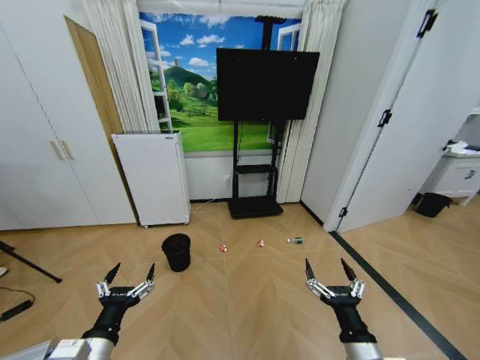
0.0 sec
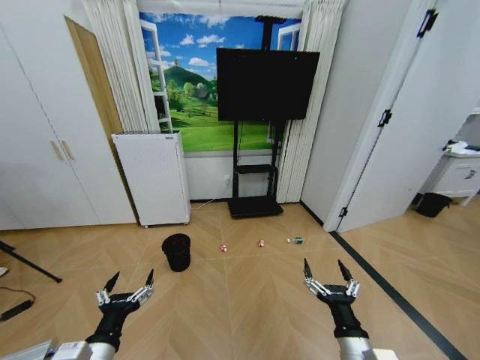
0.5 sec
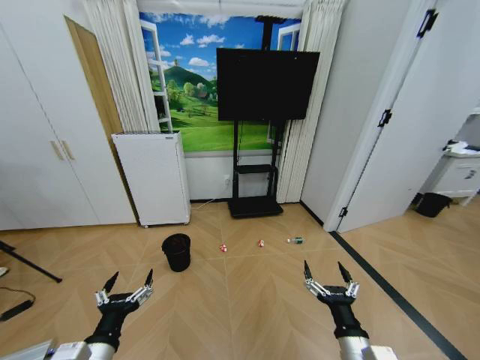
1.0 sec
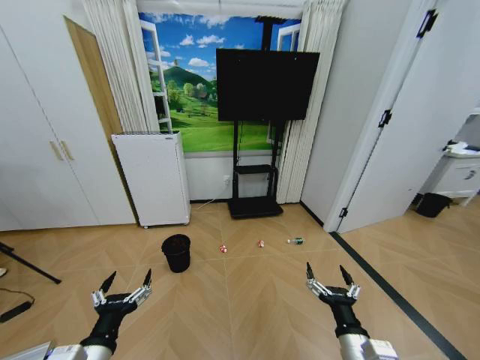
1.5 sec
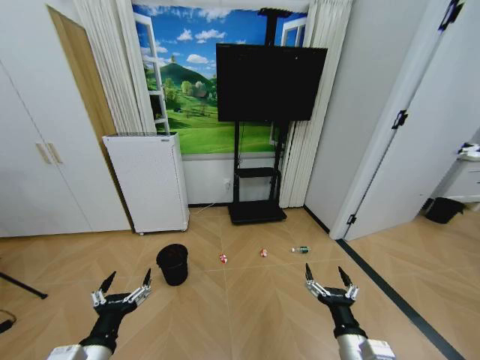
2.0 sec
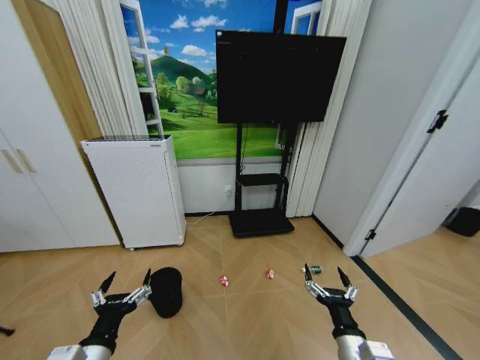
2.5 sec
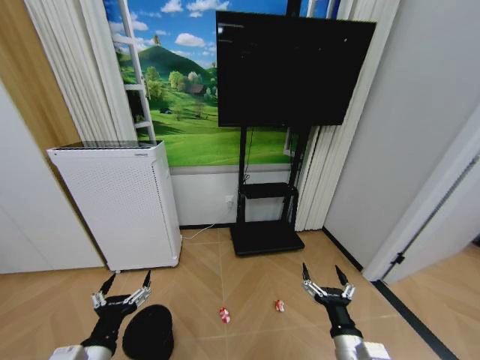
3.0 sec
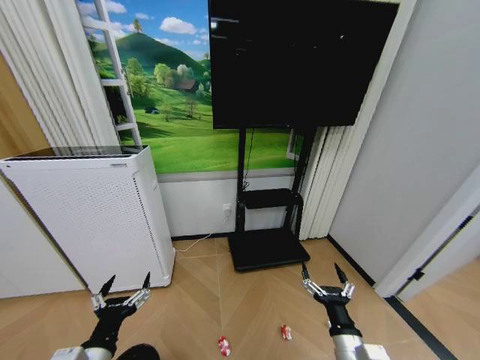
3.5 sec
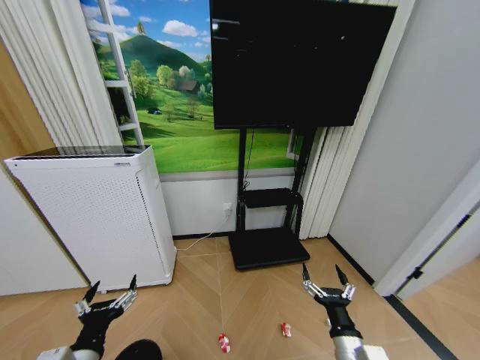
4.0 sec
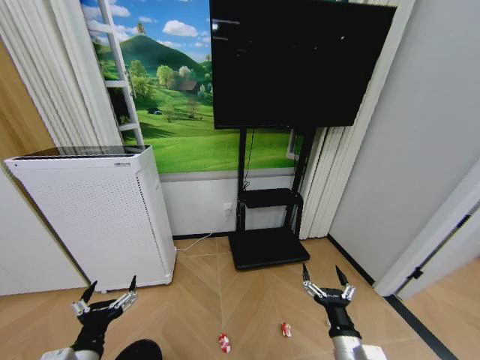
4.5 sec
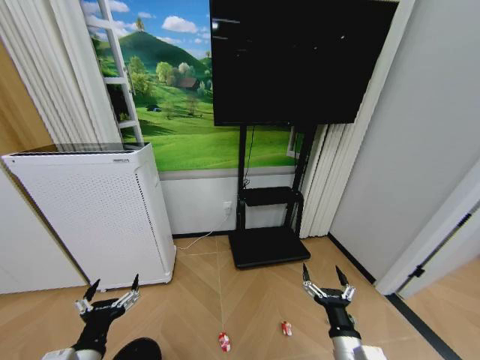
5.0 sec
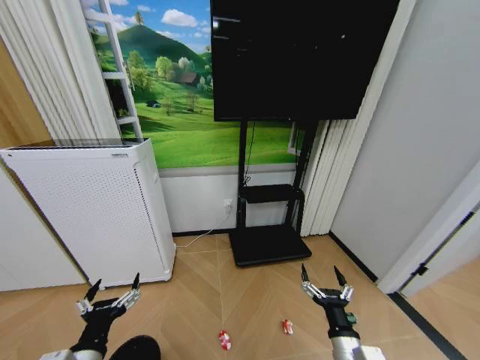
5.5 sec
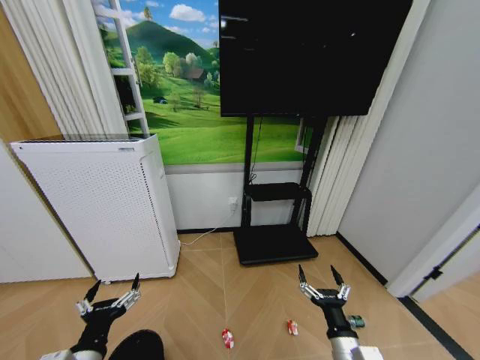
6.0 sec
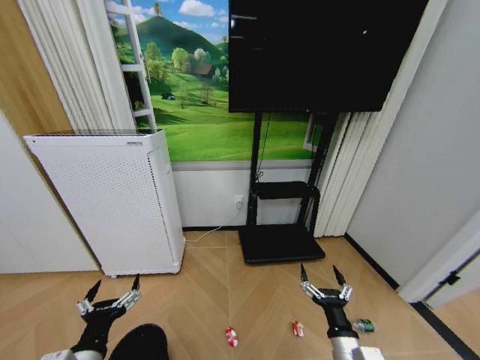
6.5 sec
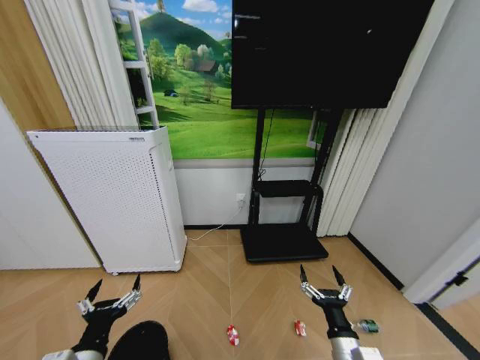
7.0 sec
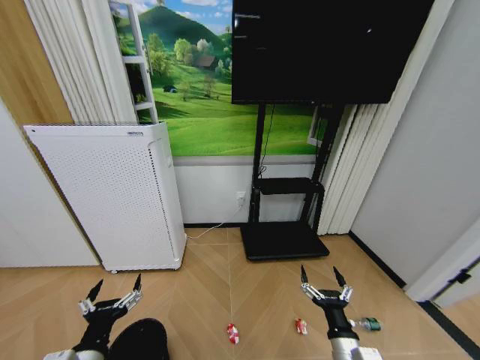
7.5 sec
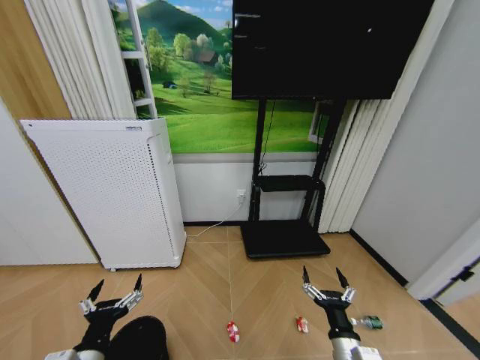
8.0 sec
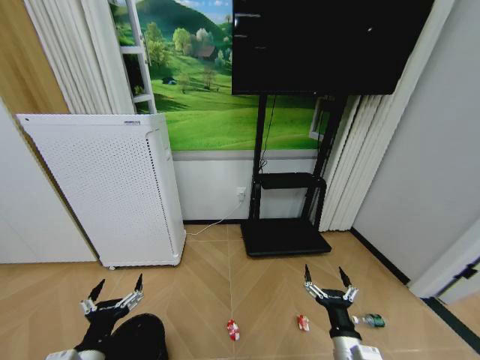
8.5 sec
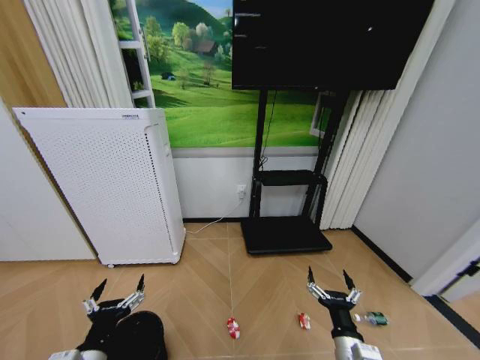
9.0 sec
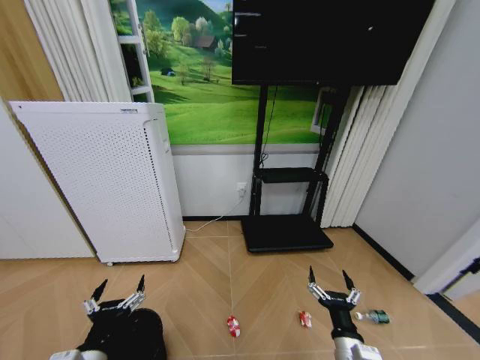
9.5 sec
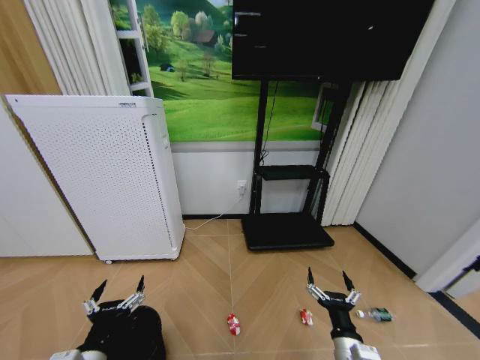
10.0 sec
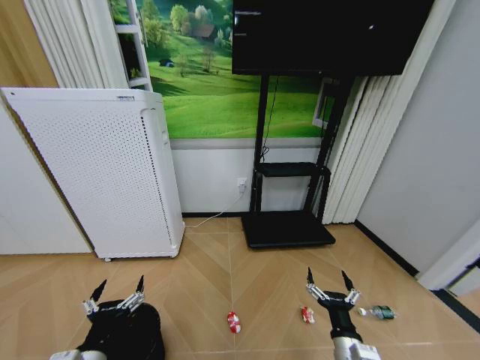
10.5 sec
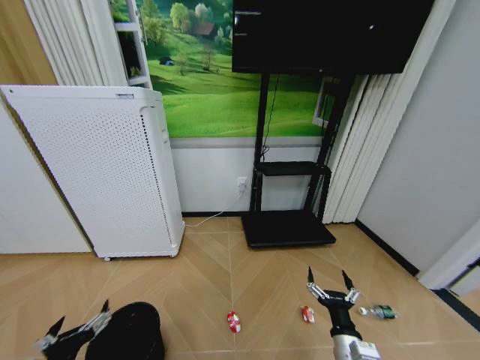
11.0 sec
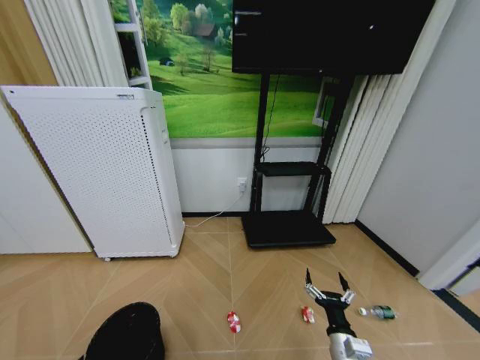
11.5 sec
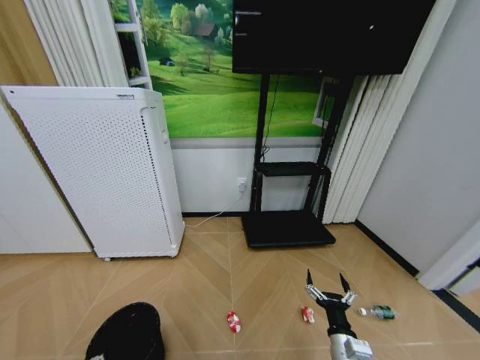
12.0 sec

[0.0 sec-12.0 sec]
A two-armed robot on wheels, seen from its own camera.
Task of the whole recording: Pick up the trash bin and place the garbage on the floor into it.
8.0 sec to 10.0 sec: The grippers move only a little.
10.0 sec to 12.0 sec: The left gripper heads to the left and downward, covering about 15 cm.

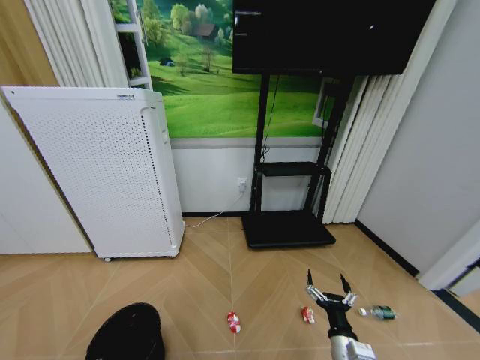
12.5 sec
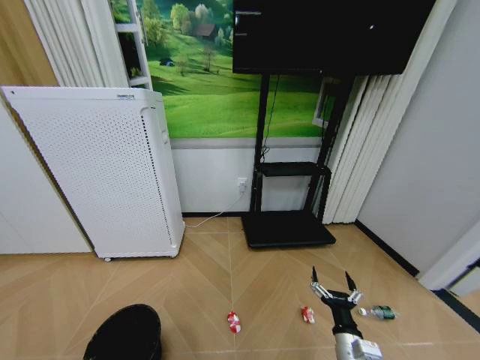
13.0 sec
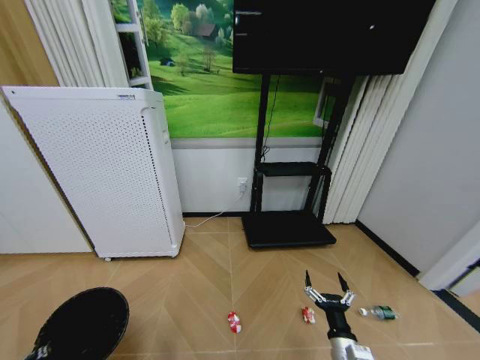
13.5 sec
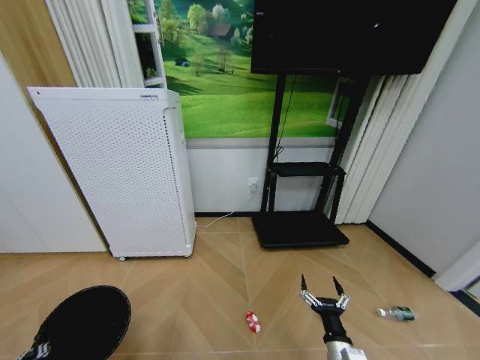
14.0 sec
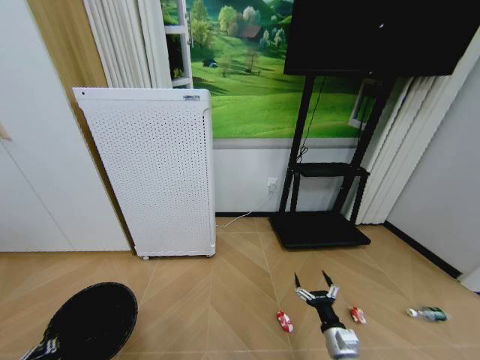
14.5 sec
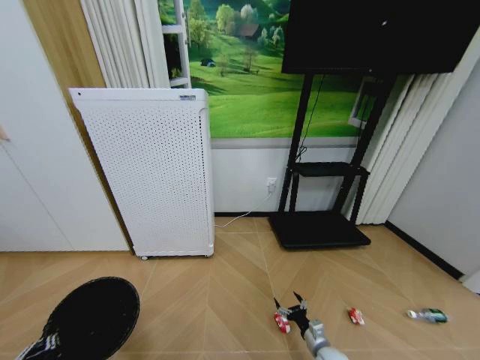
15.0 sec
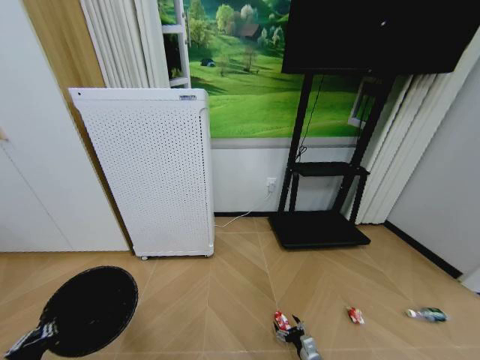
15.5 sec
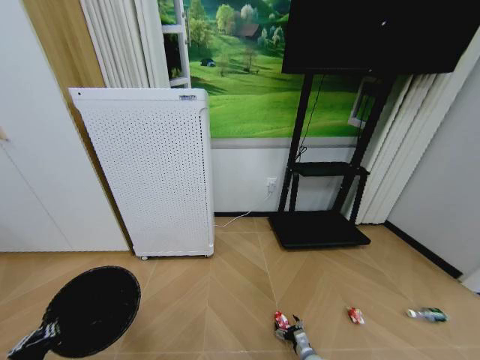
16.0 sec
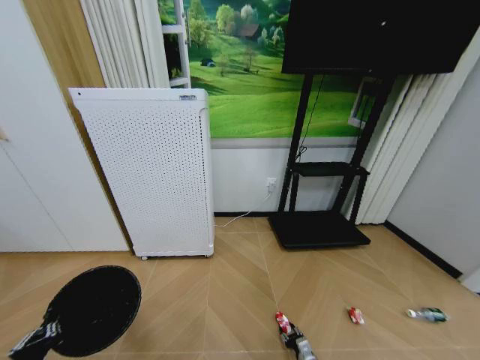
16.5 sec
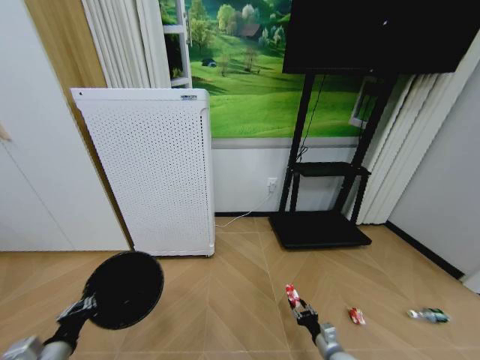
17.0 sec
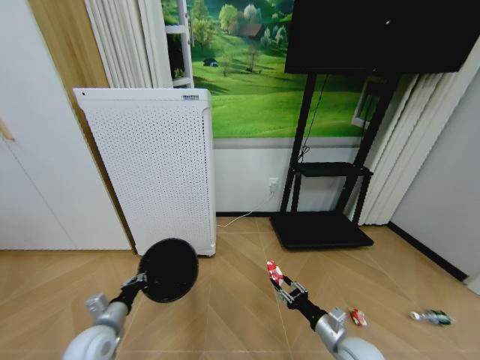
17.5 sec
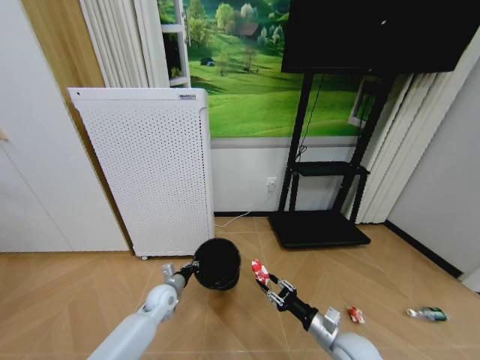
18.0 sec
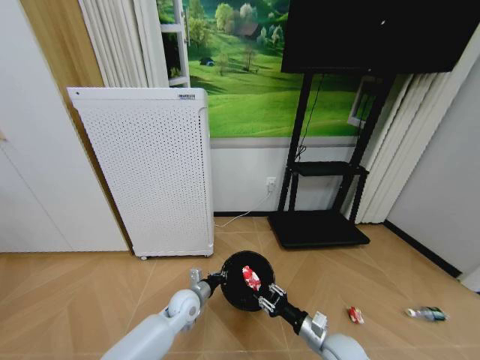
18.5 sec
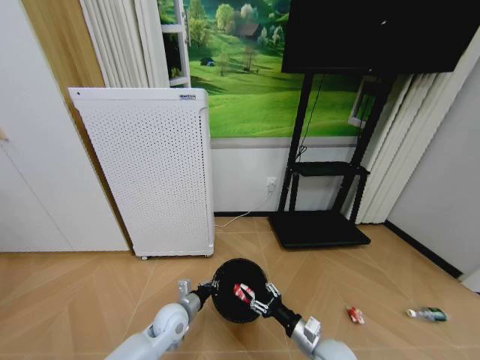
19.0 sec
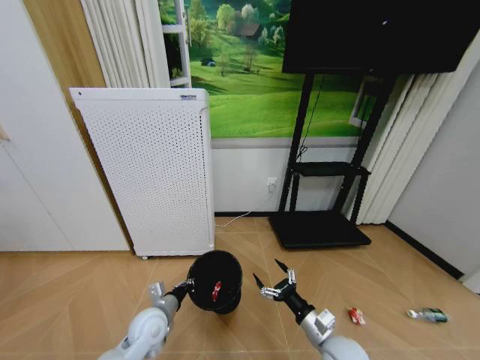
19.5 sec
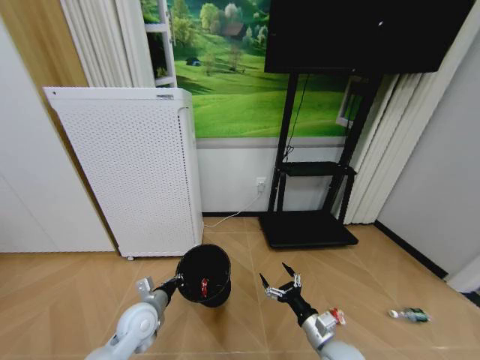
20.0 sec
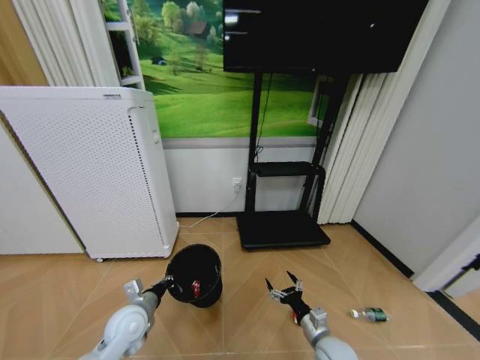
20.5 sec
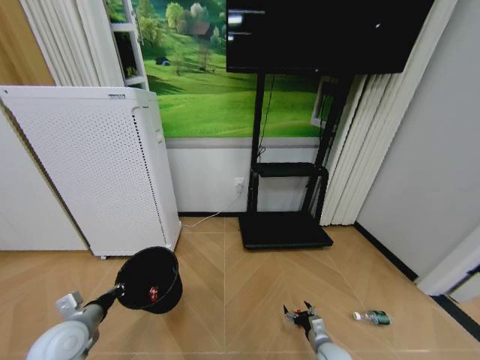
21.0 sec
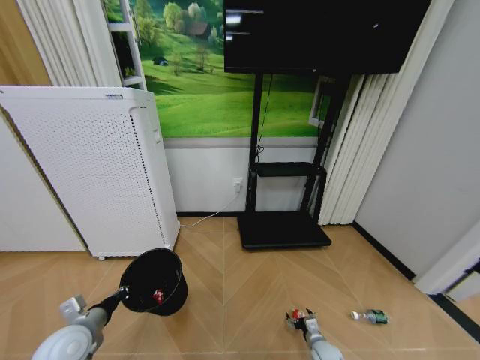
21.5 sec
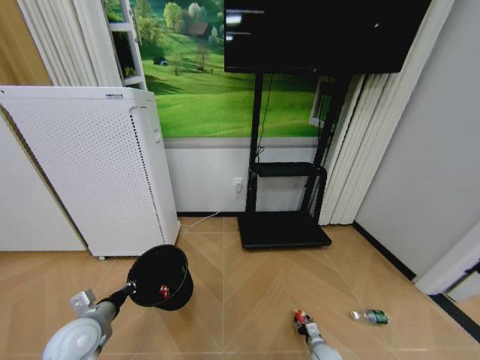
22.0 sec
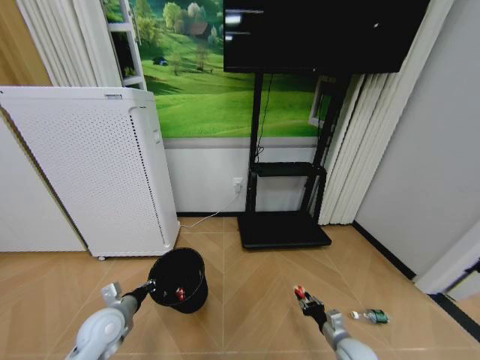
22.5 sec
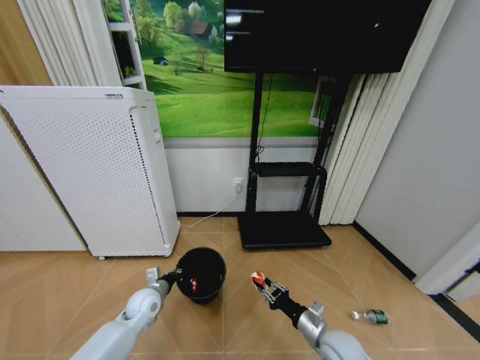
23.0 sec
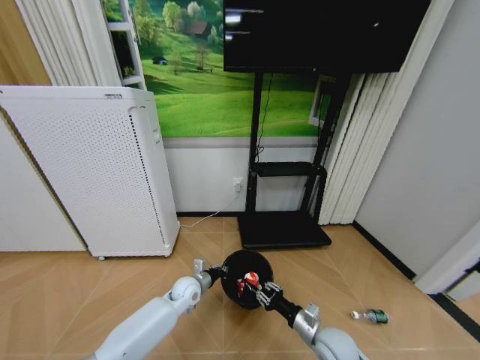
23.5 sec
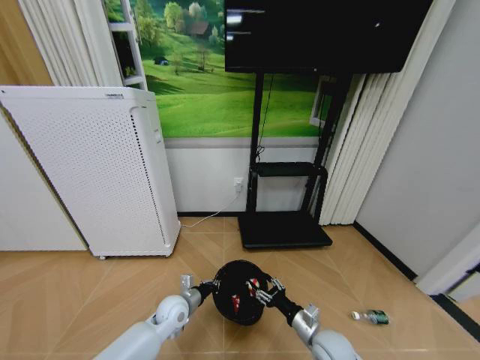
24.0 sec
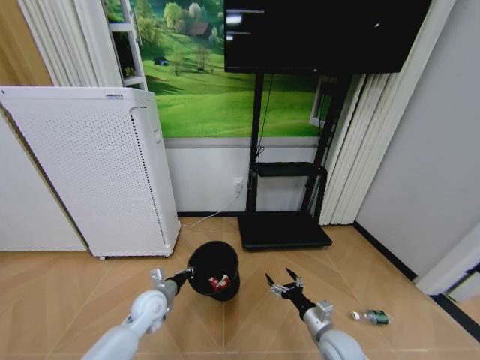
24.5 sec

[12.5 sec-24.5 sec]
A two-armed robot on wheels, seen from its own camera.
Task of the whole recording: Pick up the trash bin and place the garbage on the floor into it.
12.5 sec to 14.5 sec: The left gripper closes.
14.5 sec to 16.5 sec: The right gripper heads downward, covering about 20 cm, and closes its fingers. The left gripper shifts about 5 cm upward.
16.5 sec to 18.5 sec: The right gripper travels upward by roughly 25 cm. The left gripper travels forward and to the right by about 40 cm.
18.5 sec to 20.5 sec: The right gripper opens its fingers. Meanwhile the left gripper travels to the left, backward and upward by about 15 cm.
20.5 sec to 22.5 sec: The left gripper is displaced to the left by about 5 cm. The right gripper shifts some 10 cm to the right, moves approximately 20 cm downward and comes back, and closes.
22.5 sec to 24.5 sec: The right gripper goes roughly 10 cm to the left and upward, and opens up. Meanwhile the left gripper shifts approximately 10 cm to the right and forward.

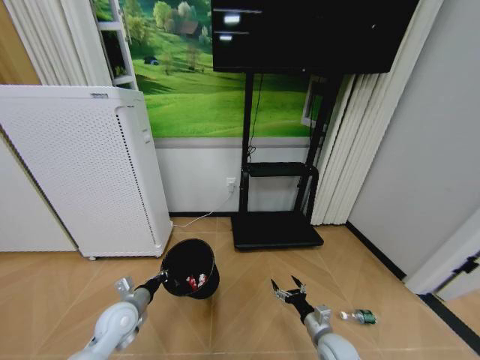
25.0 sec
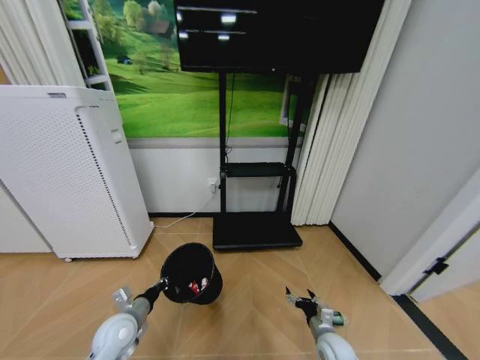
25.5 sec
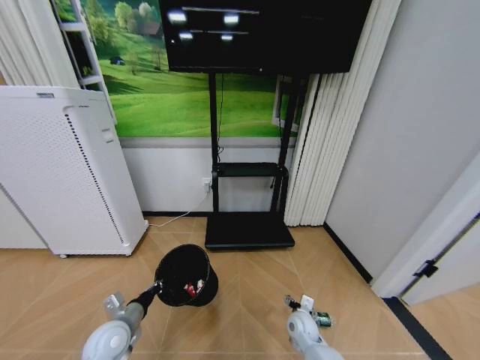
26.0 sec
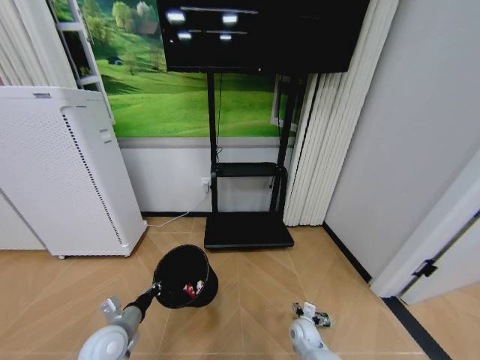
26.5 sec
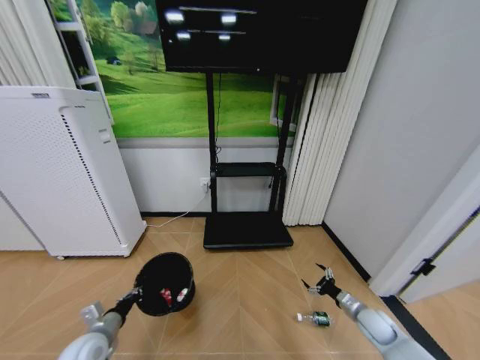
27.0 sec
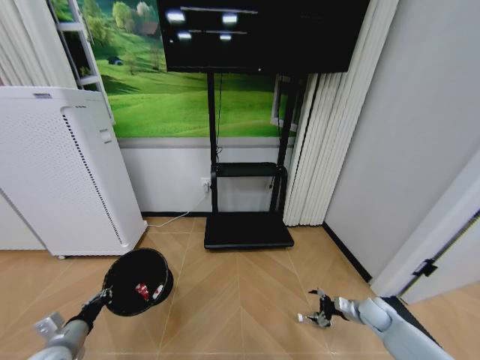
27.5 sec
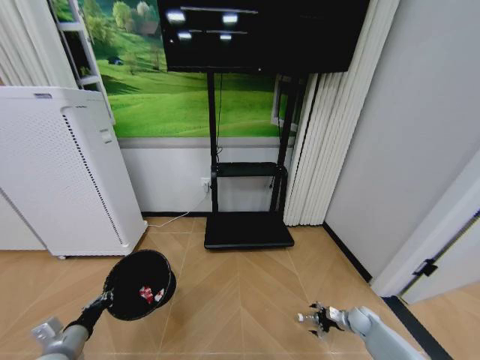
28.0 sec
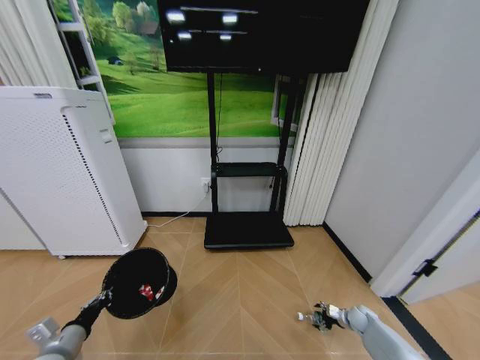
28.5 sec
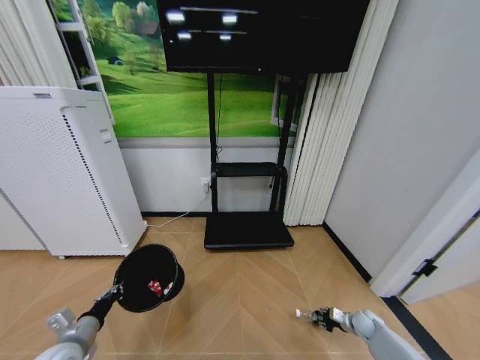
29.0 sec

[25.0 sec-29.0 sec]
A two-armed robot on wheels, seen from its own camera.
Task of the whole recording: Pick up the trash bin and place the garbage on the floor into it.
25.0 sec to 27.0 sec: The left gripper is displaced to the left and backward by approximately 10 cm, while the right gripper moves to the right and forward, roughly 20 cm.
27.0 sec to 29.0 sec: The right gripper heads downward, covering about 10 cm, and closes up.
